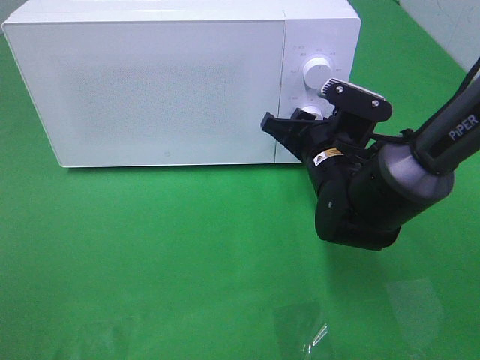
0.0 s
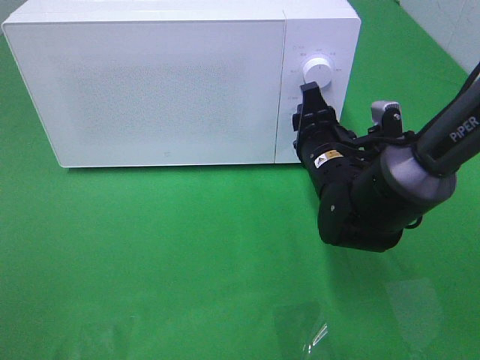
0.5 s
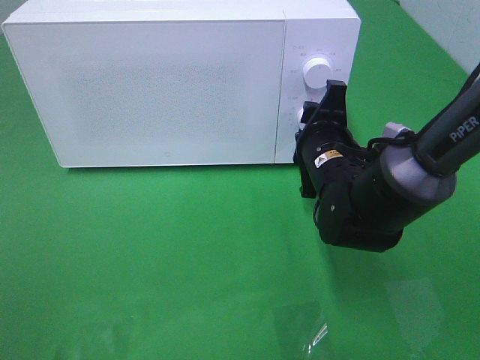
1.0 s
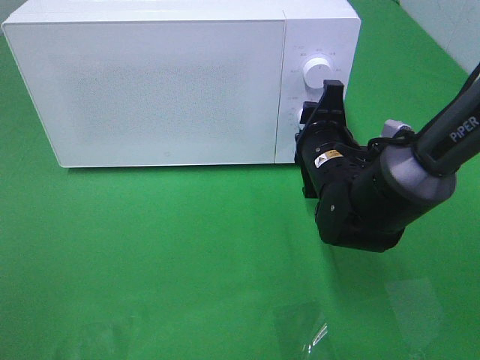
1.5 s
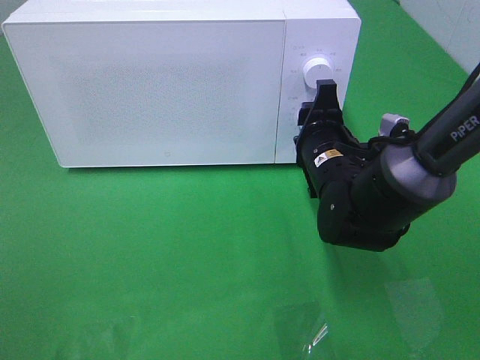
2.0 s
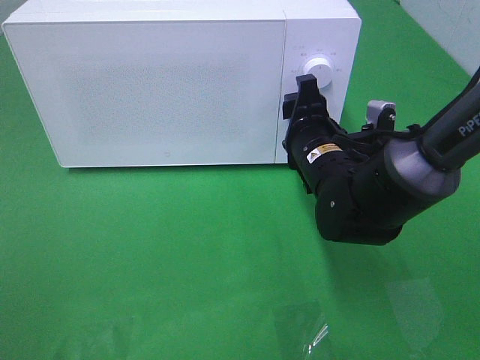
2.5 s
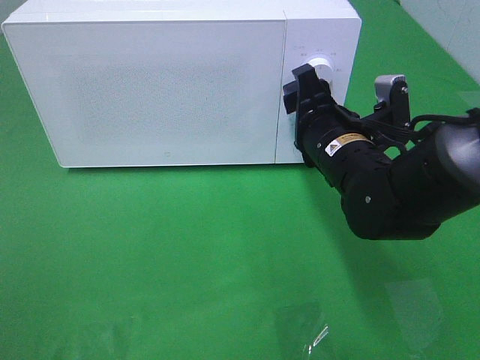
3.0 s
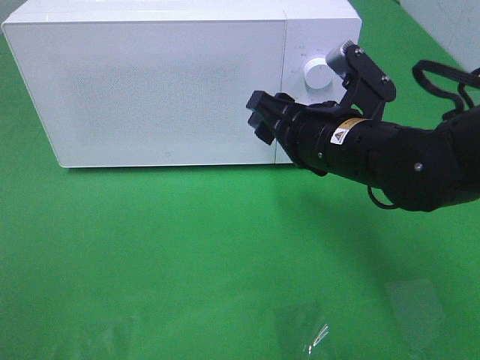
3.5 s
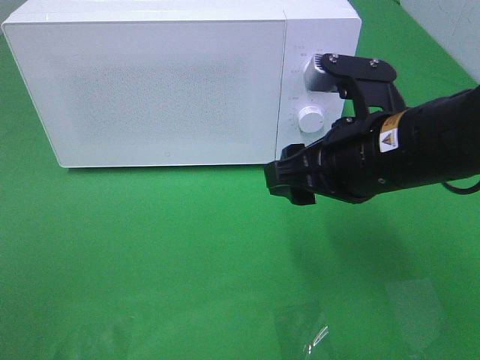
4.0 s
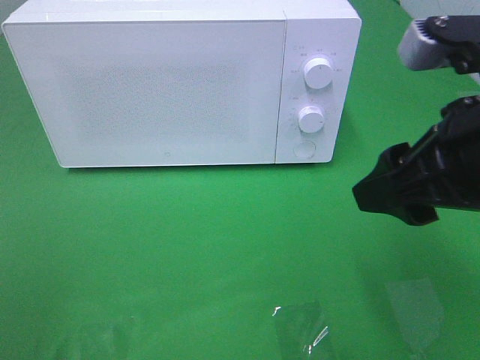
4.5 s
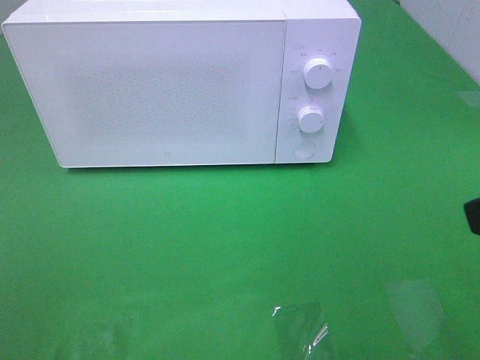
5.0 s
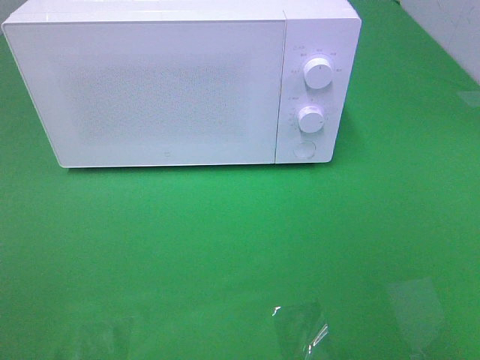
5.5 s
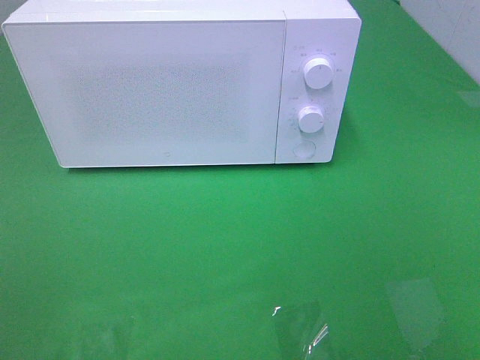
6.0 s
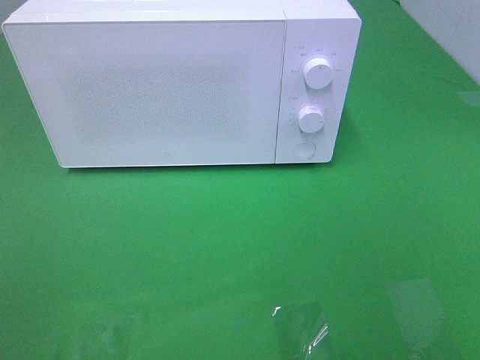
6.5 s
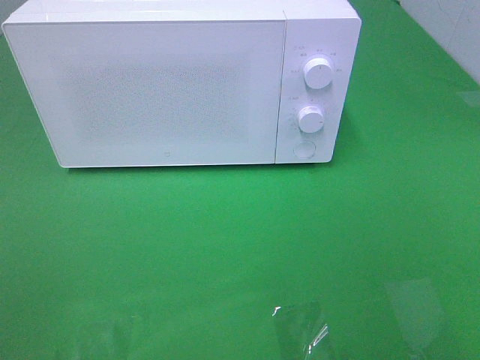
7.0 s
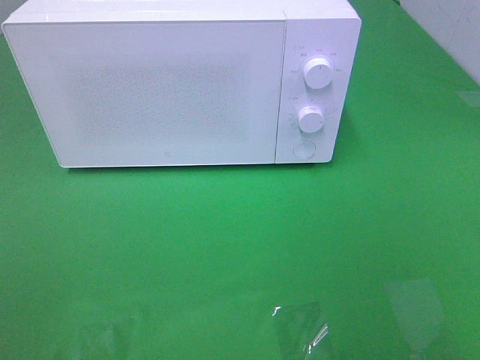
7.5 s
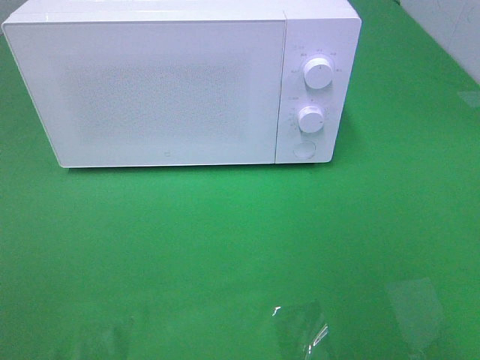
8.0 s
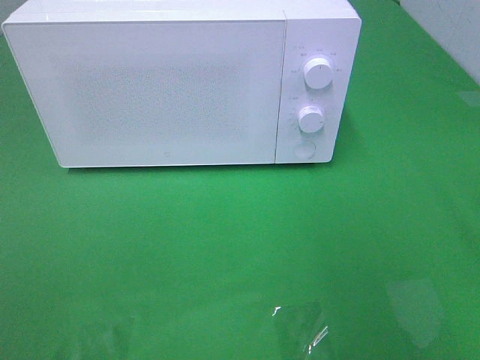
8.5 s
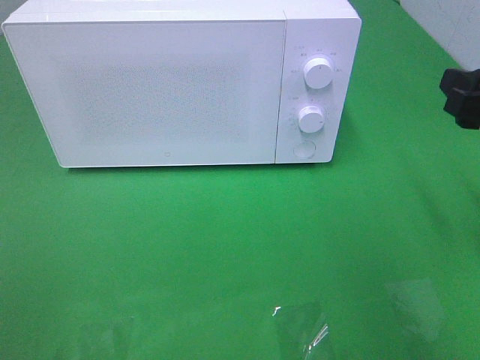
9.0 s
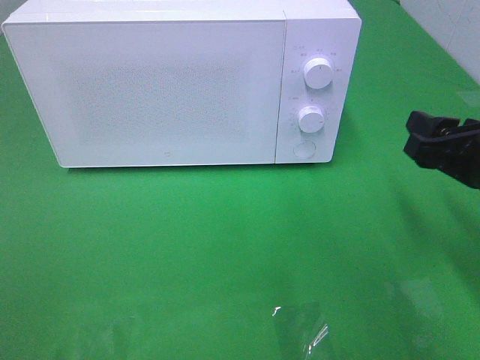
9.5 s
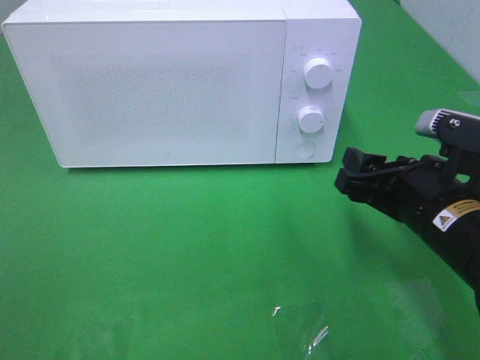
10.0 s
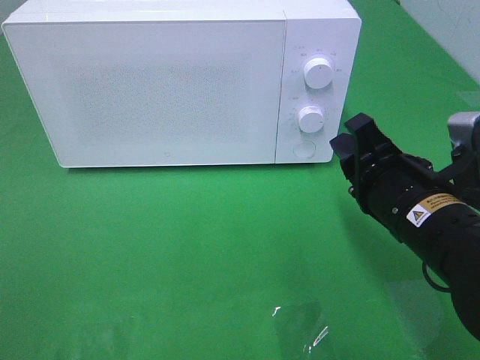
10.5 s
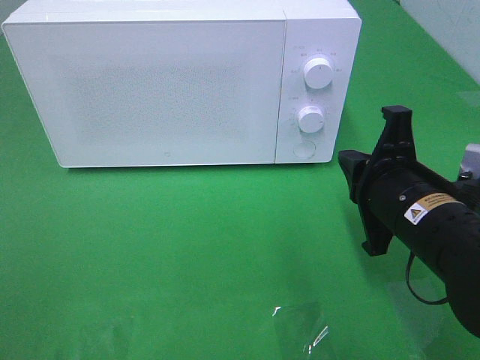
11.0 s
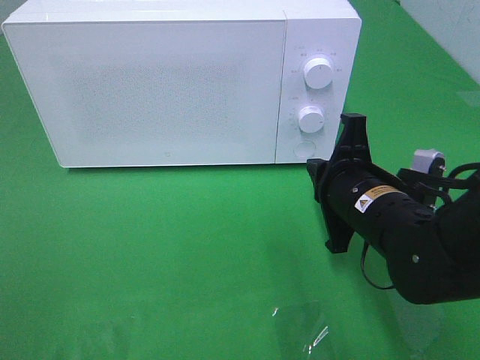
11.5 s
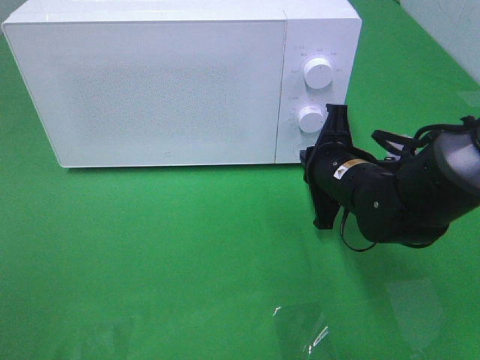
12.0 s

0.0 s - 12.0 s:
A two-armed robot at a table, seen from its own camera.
Task of the whole recording: Heat the burger.
Step, 0.0 s - 2.0 s: Right hand: twist timer button.
2.0 s - 4.0 s: The right gripper heads upward and backward, covering about 15 cm.
4.0 s - 6.0 s: The right gripper moves backward and to the right, some 30 cm.
8.0 s - 10.0 s: The right gripper shifts approximately 25 cm downward, forward and to the left.
10.0 s - 12.0 s: The right gripper is displaced forward and to the left by some 10 cm, and closes its fingers.

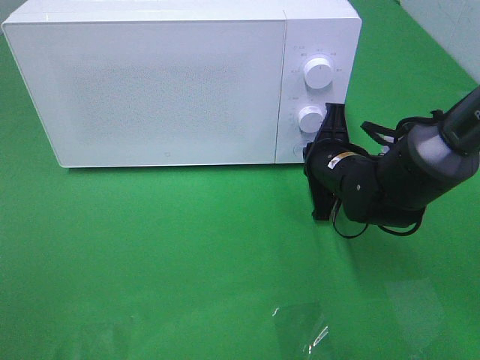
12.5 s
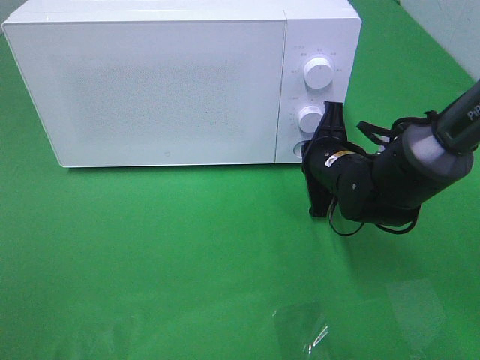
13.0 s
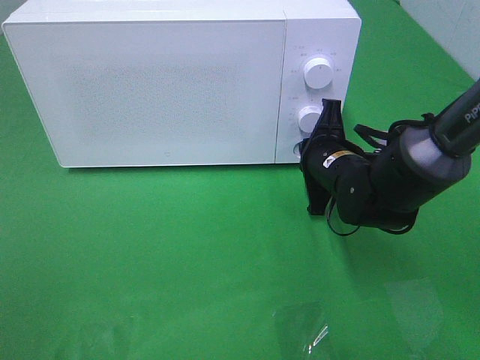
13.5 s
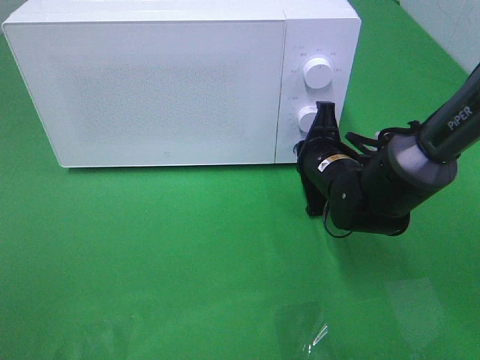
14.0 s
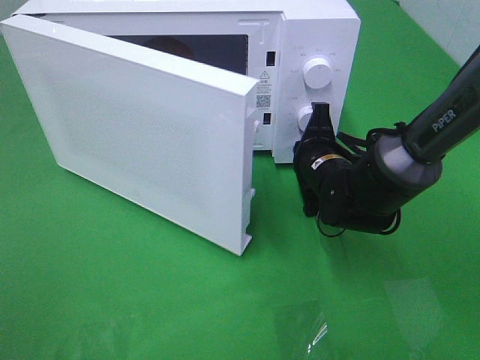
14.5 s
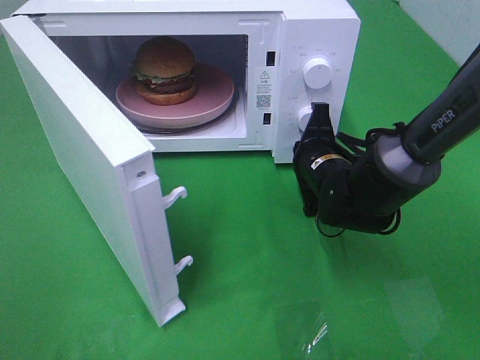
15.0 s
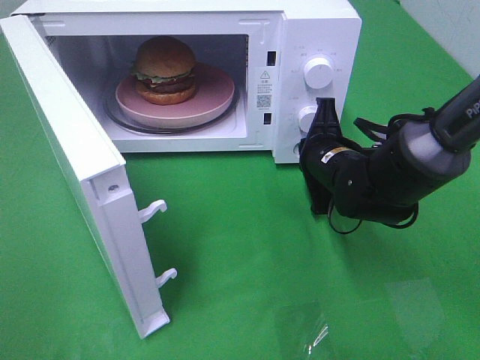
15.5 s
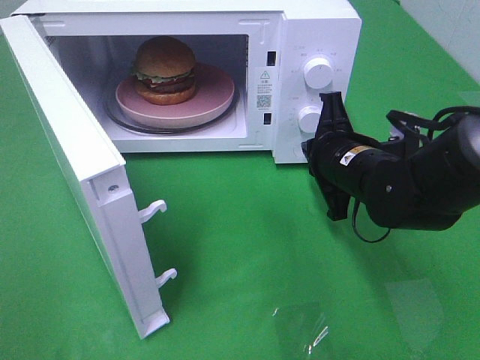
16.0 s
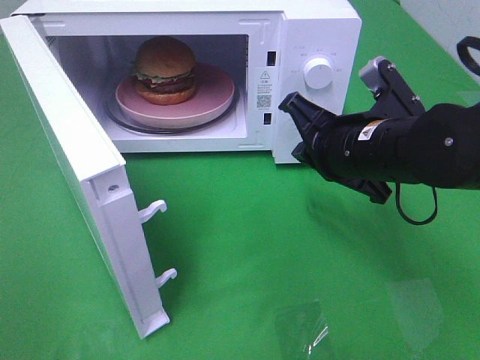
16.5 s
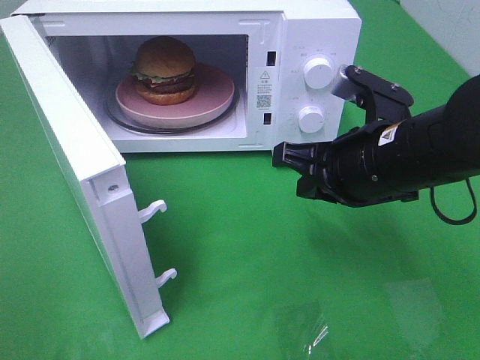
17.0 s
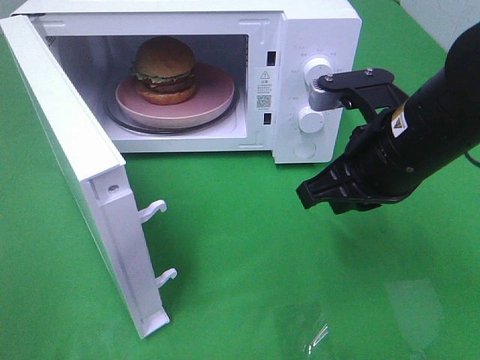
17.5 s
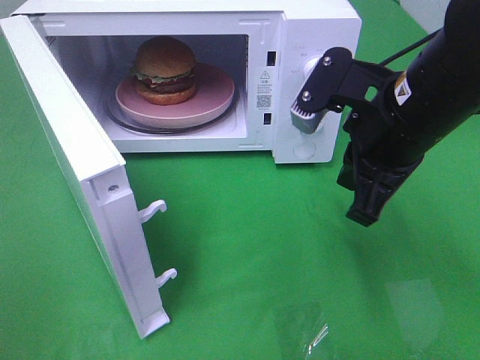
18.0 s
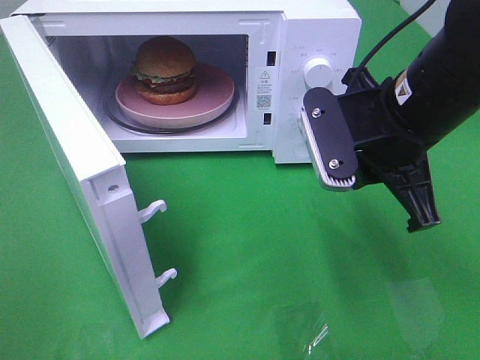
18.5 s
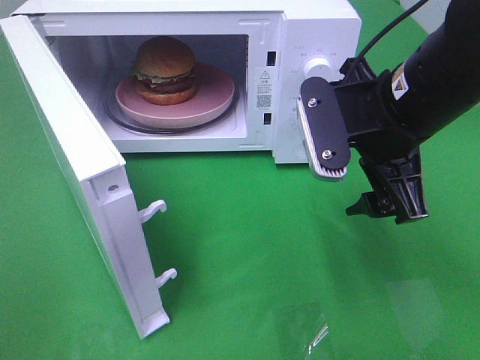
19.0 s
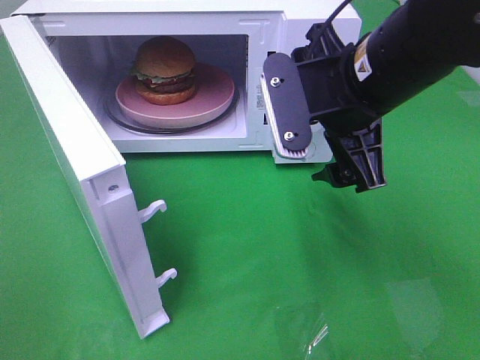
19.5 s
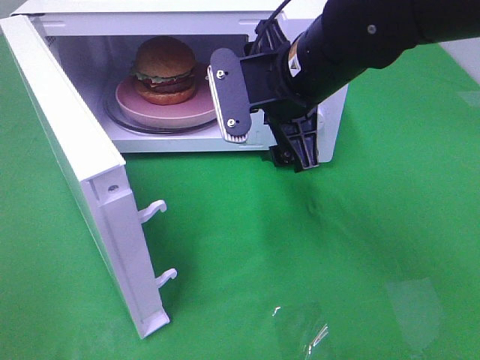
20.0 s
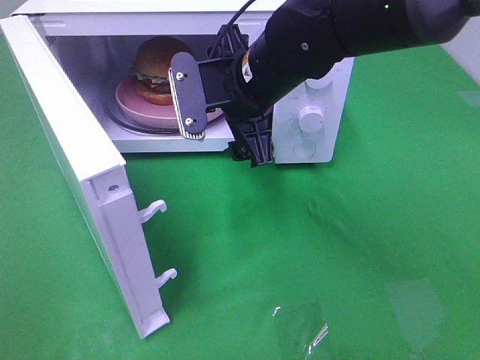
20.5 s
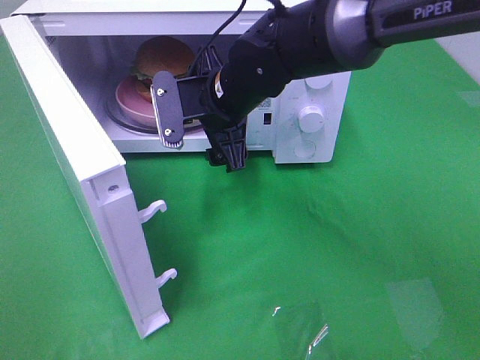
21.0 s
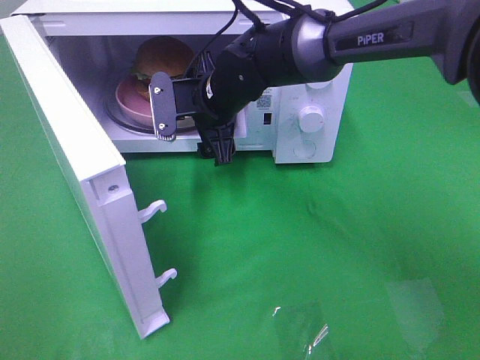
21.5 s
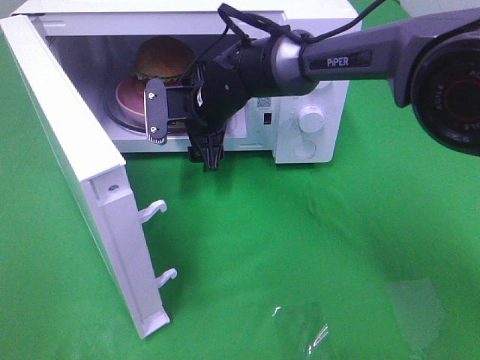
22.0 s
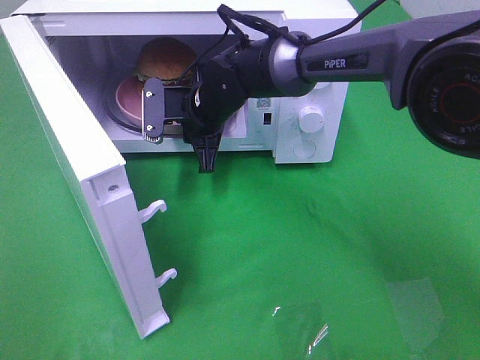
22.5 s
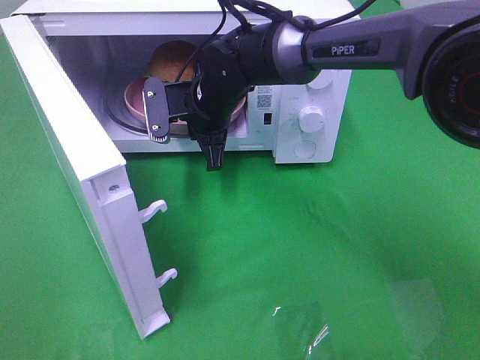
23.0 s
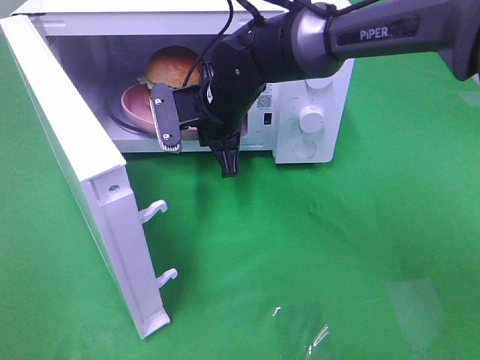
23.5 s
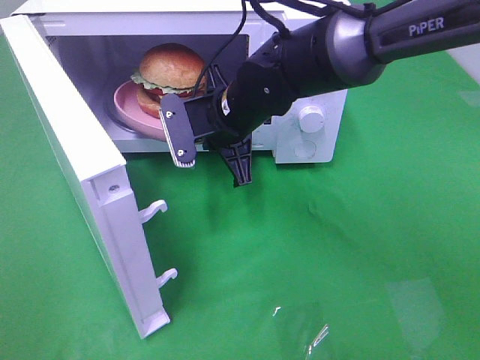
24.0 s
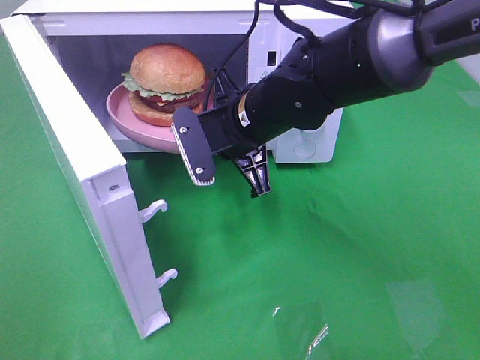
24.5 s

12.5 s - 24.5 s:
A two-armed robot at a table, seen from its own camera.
Task of the whole recording: Heat the burger.
Step, 12.5 s - 15.5 s: Right hand: press the switch.
Step, 16.0 s - 23.0 s: Right hand: grab the plate with the hamburger.
14.5 s - 16.5 s: The right gripper shifts approximately 15 cm upward and backward.
16.5 s - 18.5 s: The right gripper is displaced upward by roughly 5 cm.
18.5 s - 20.5 s: The right gripper is displaced to the left and forward by some 15 cm, and opens up.
20.5 s - 22.5 s: The right gripper travels downward, forward and to the left by roughly 15 cm, and closes up.
22.5 s - 24.5 s: The right gripper is displaced backward and to the right by some 10 cm.

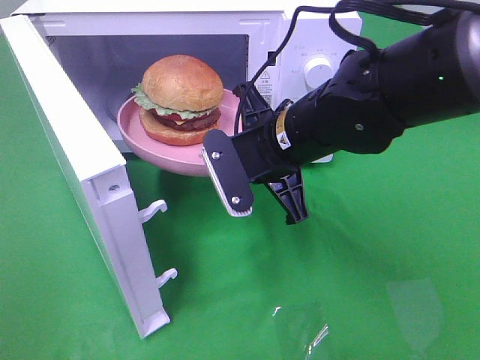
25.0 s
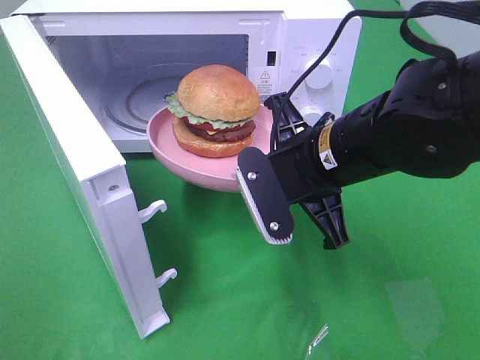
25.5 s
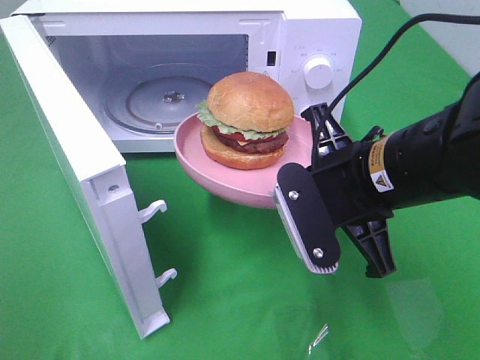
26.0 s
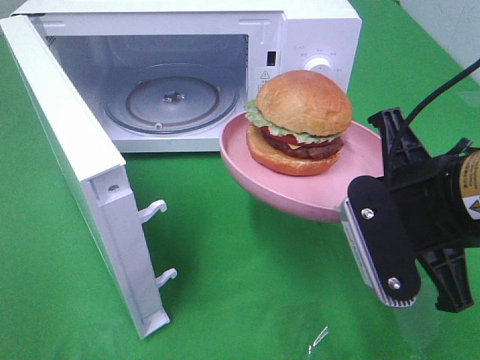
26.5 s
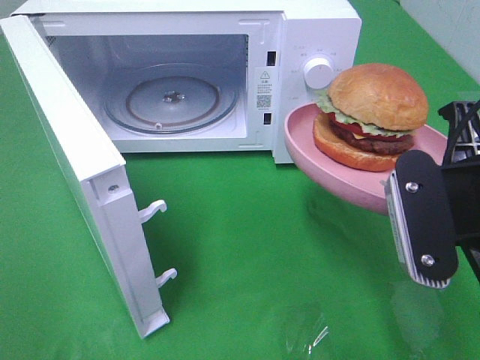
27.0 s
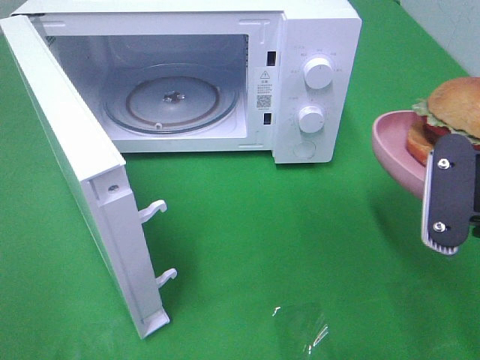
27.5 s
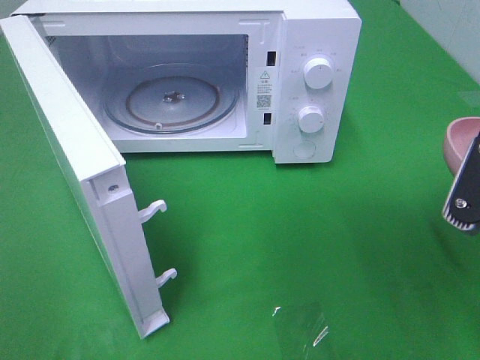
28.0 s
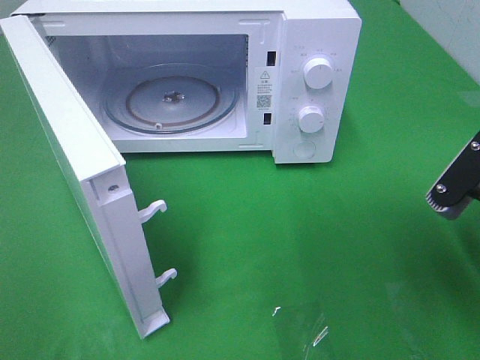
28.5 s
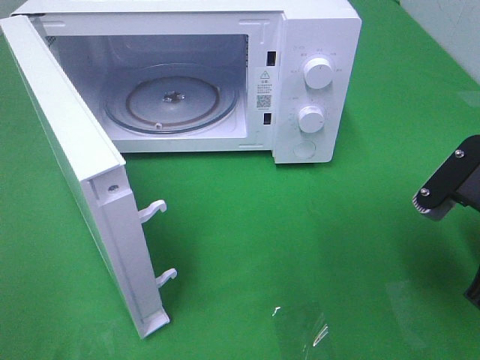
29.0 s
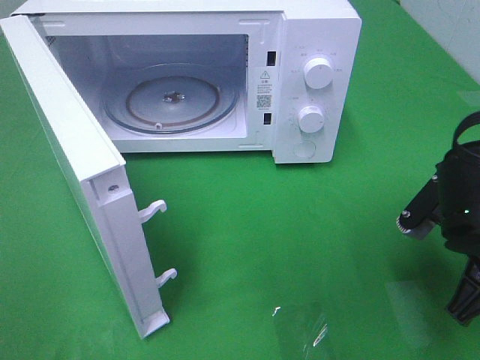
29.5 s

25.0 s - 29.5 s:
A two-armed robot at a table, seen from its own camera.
Task of the whole recording: Heat the burger.
25.0 s - 27.0 s: The right gripper is displaced backward, to the right and upward by roughly 20 cm.
27.0 s - 29.5 s: The right gripper moves downward, some 10 cm.
